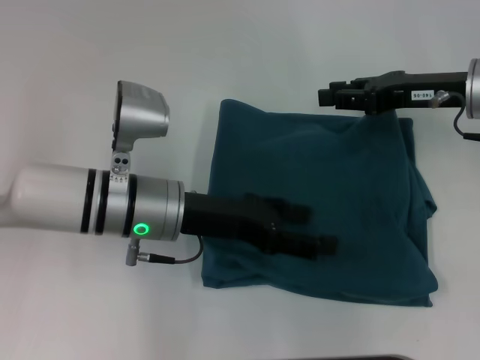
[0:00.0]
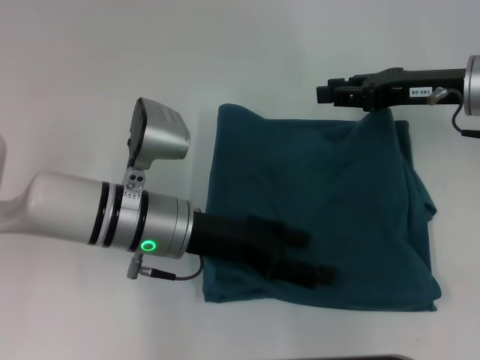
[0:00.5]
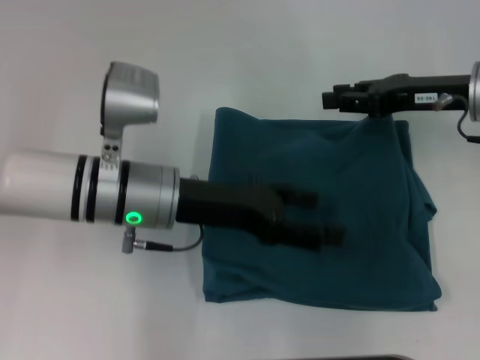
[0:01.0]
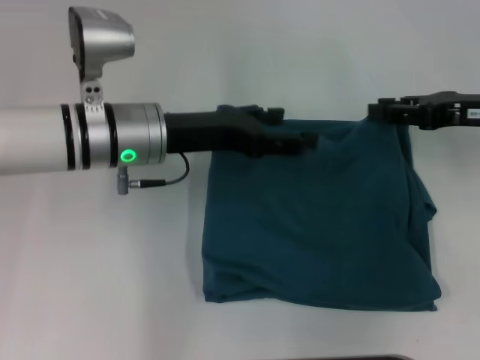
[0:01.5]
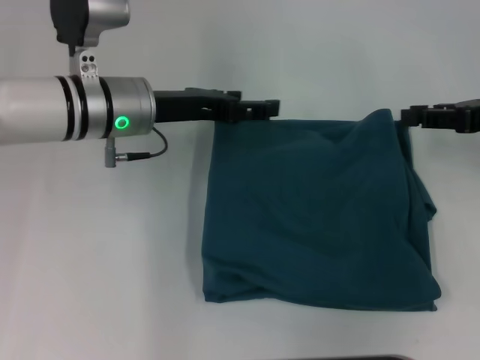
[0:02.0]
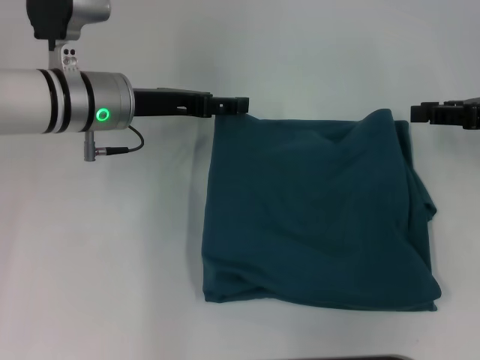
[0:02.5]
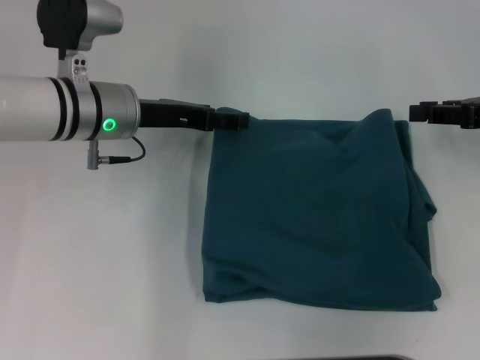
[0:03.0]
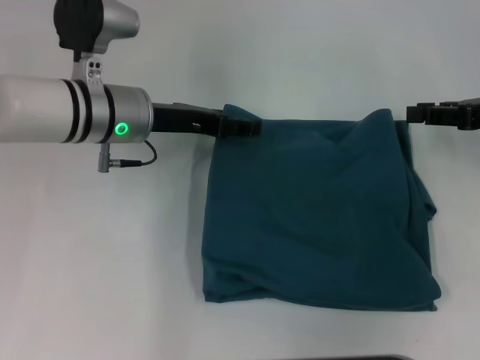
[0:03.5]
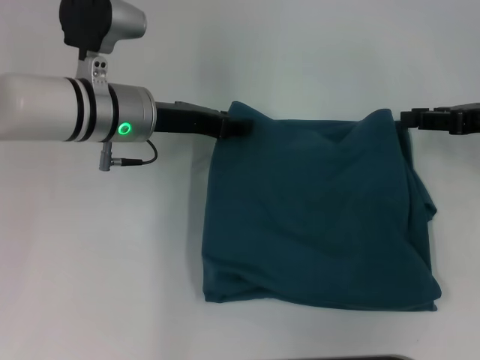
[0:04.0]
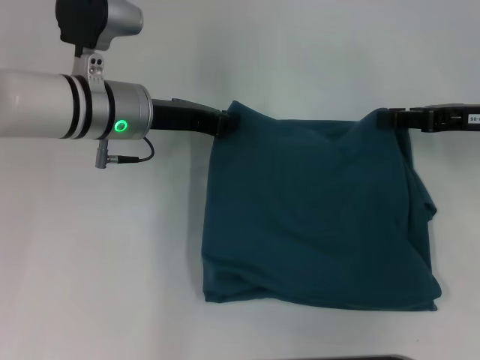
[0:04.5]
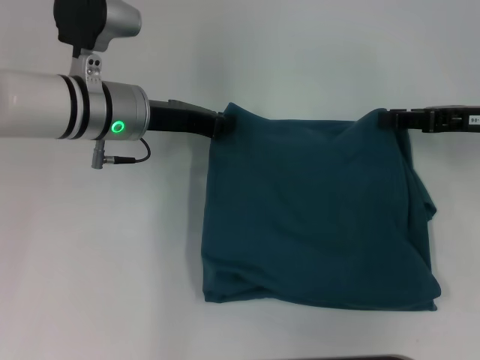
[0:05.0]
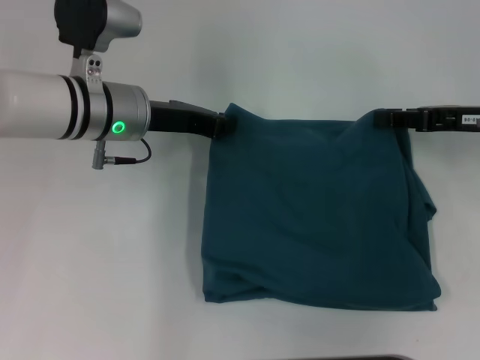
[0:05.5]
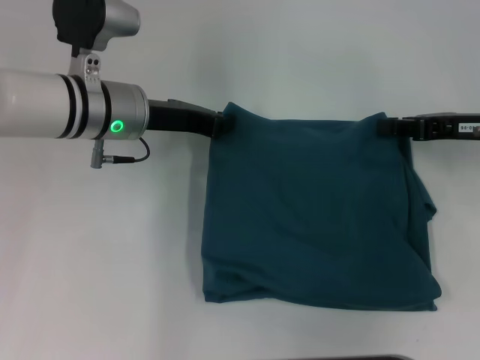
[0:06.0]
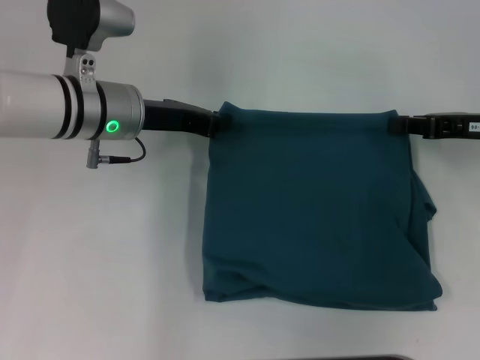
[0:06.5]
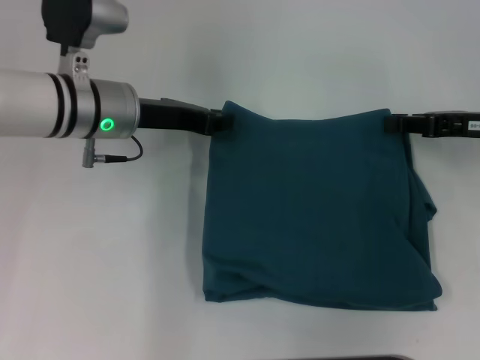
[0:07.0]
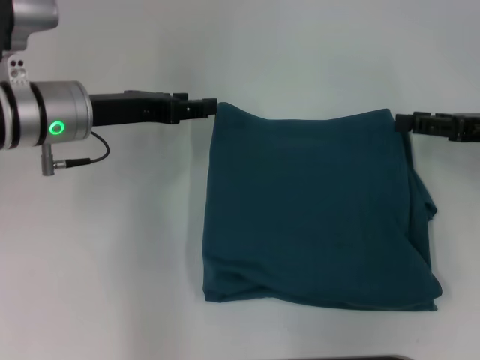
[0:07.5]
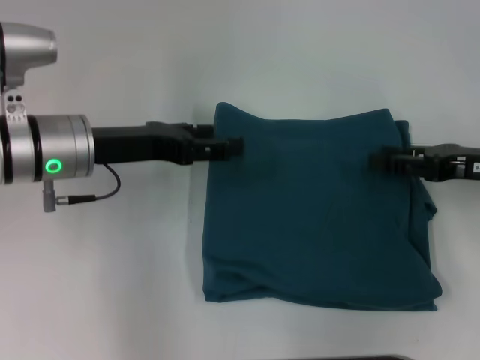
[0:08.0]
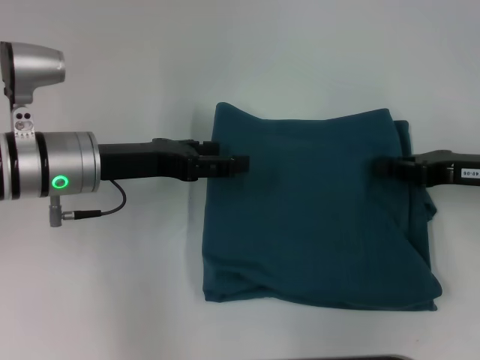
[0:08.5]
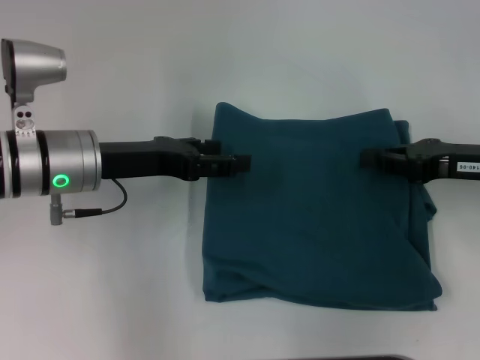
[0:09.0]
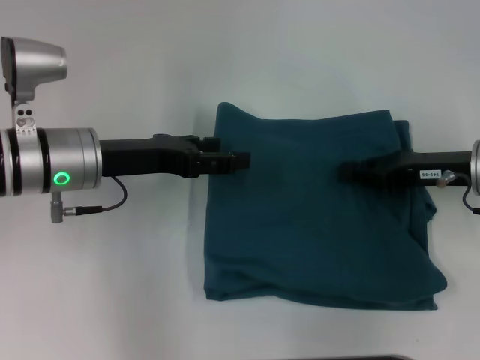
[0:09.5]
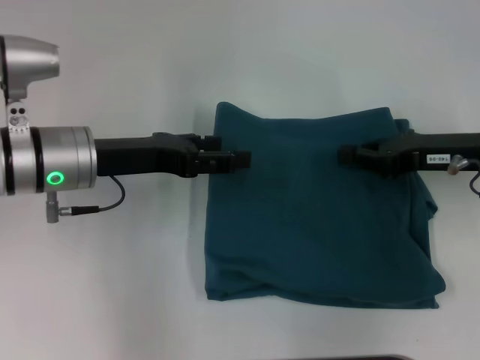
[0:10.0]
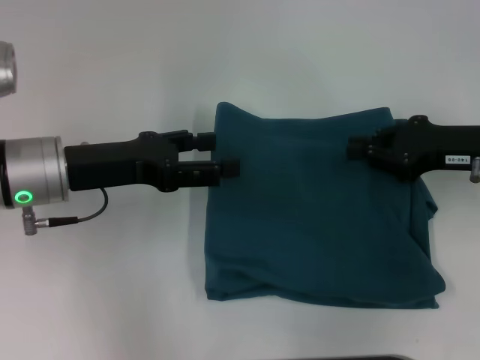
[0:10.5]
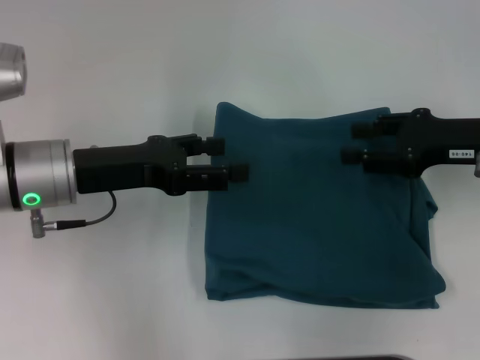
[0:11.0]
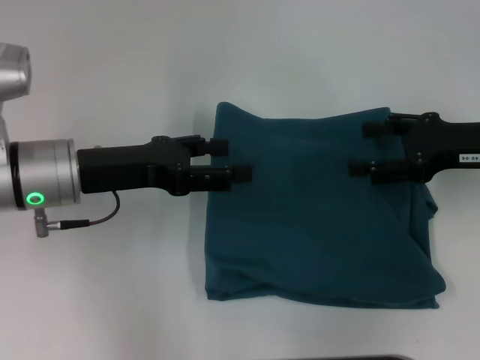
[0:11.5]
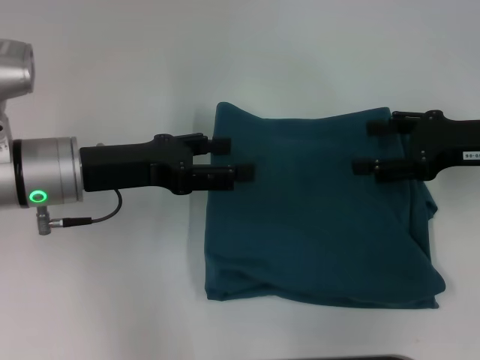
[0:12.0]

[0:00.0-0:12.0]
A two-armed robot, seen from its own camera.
0.0 to 2.0 s: The right gripper travels to the right by some 10 cm, while the left gripper shifts about 10 cm forward.
2.0 to 4.0 s: There are only small adjustments of the grippers.
4.0 to 6.0 s: The left gripper closes.
6.0 to 8.0 s: The right gripper opens its fingers. Meanwhile the left gripper shifts some 5 cm backward, and opens up.
8.0 to 10.0 s: The right gripper closes.
10.0 to 12.0 s: The right gripper opens up.

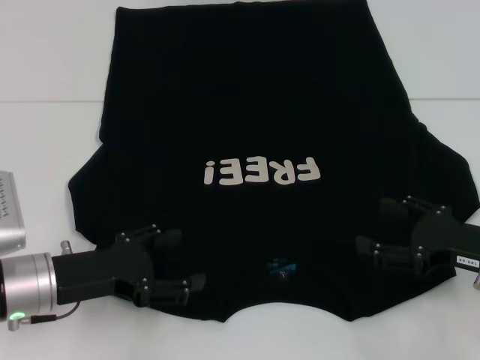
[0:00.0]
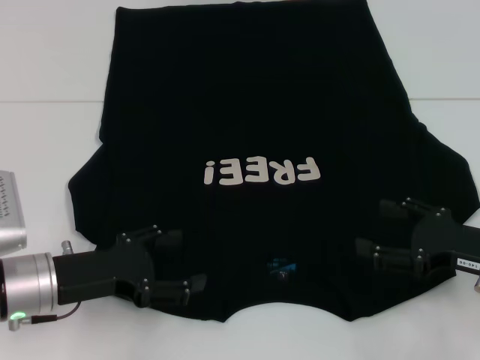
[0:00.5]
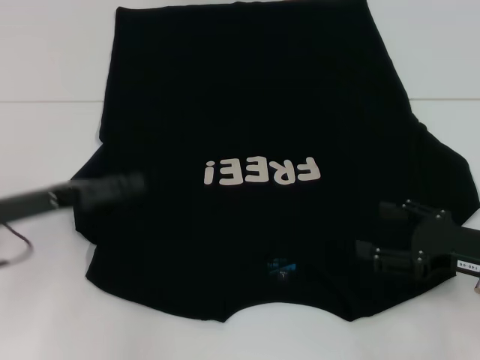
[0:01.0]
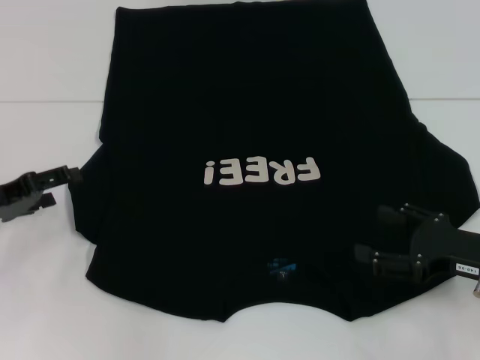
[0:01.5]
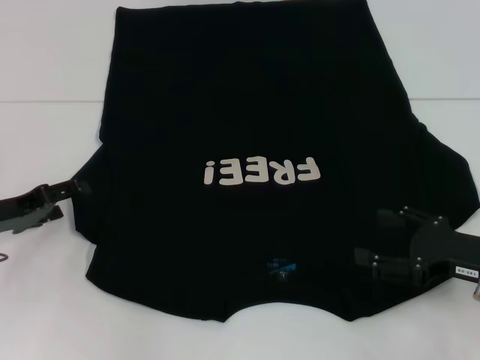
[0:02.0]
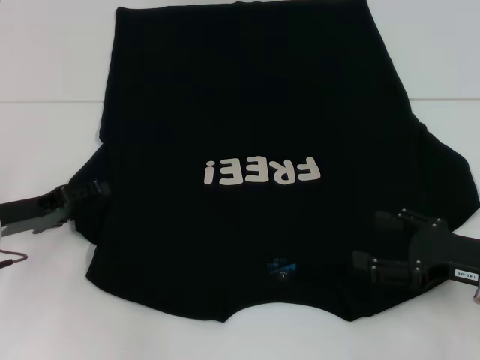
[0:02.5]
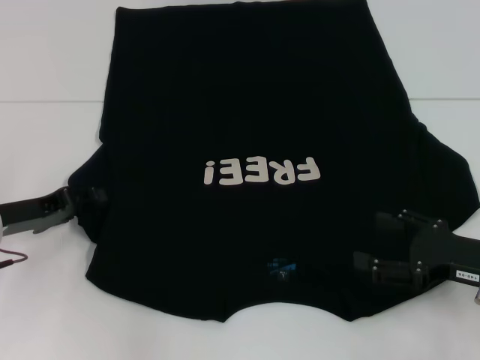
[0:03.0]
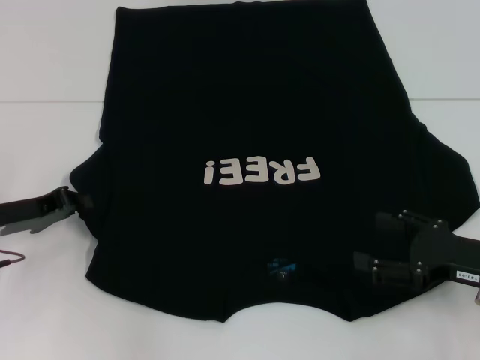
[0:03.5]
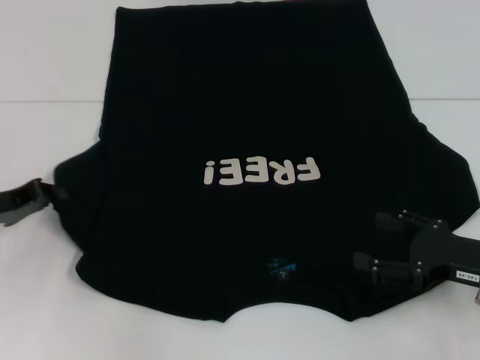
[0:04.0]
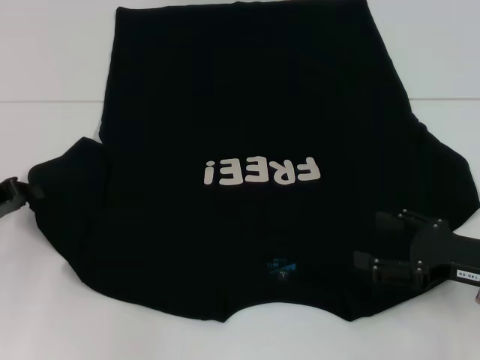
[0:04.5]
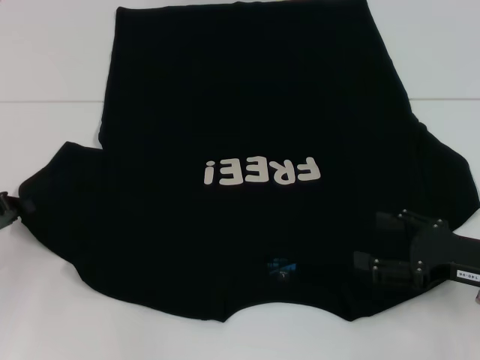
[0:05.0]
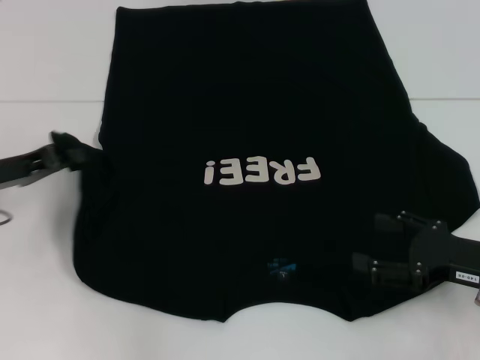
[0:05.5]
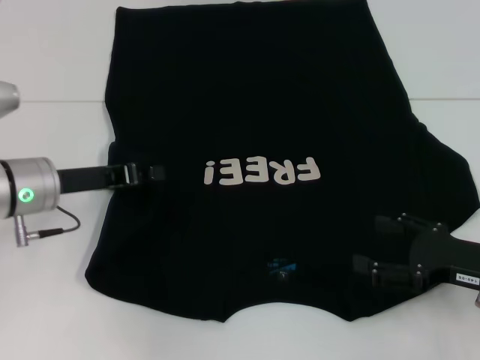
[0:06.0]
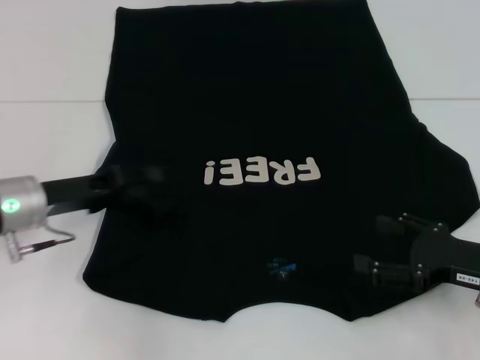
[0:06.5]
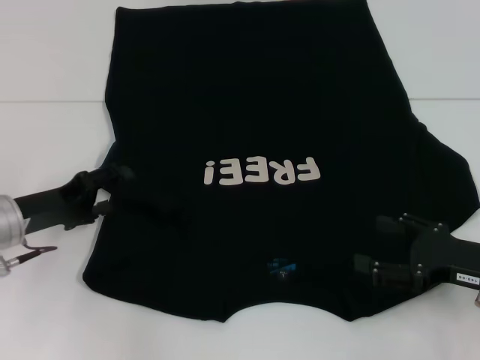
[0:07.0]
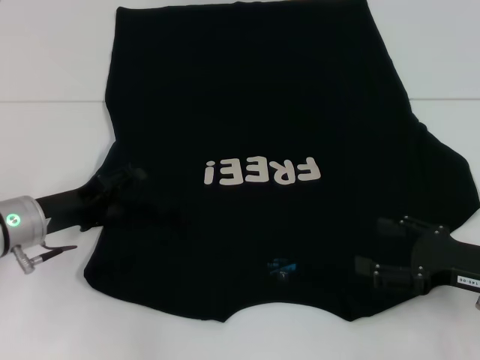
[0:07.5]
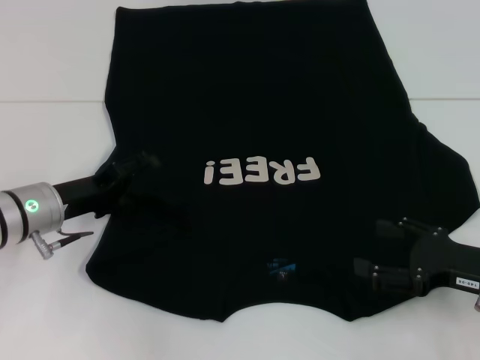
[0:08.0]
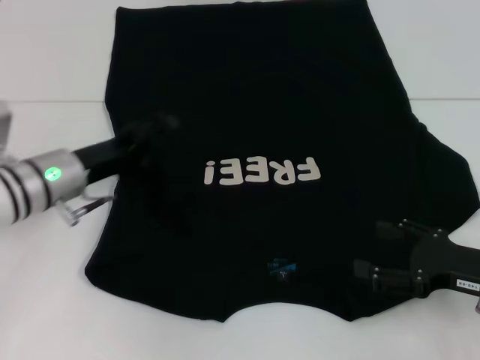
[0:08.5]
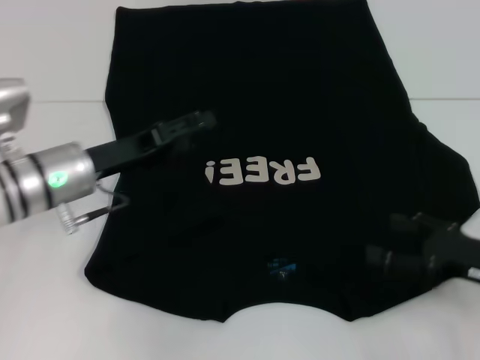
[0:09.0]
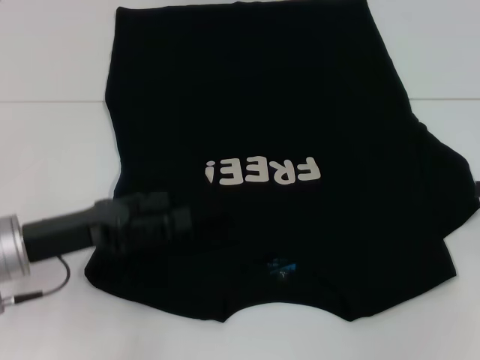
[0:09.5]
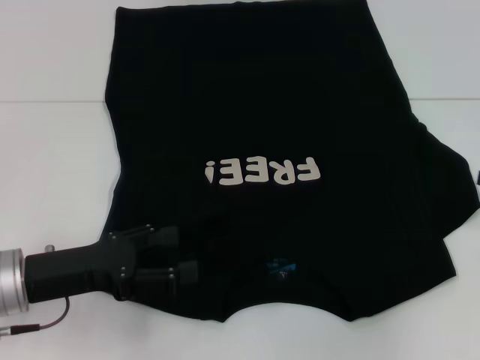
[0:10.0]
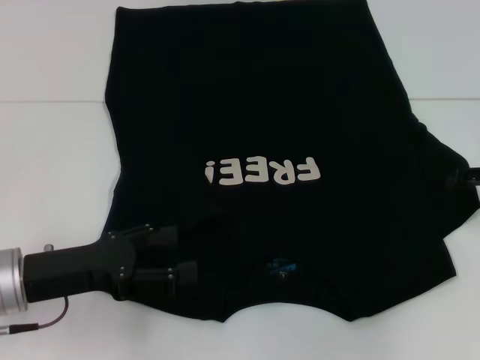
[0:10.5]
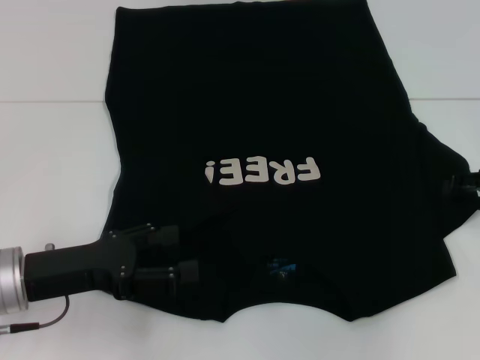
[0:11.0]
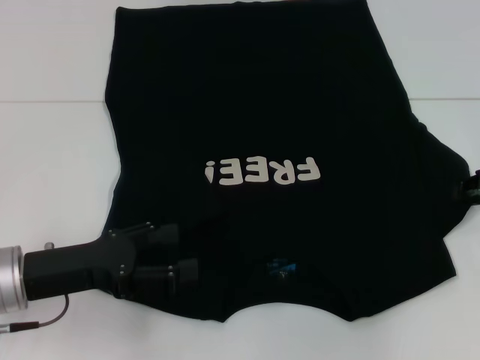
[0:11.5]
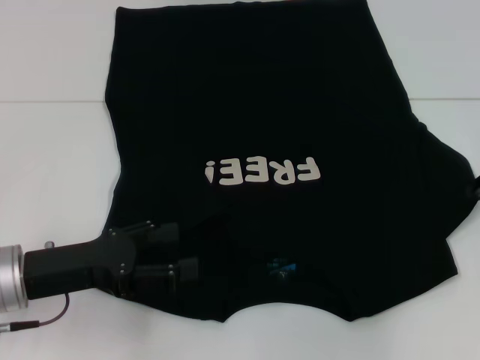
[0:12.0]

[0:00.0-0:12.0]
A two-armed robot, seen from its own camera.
Step, 0.0 to 9.0 s: Fold the bottom left sleeve with your left hand.
0.0 to 2.0 s: The left gripper moves to the left and forward, roughly 10 cm.
2.0 to 4.0 s: The left gripper closes up.
4.0 to 6.0 s: The left gripper goes some 10 cm to the right.
6.0 to 8.0 s: The left gripper opens up.
8.0 to 10.0 s: The left gripper heads backward, covering some 10 cm; the right gripper heads to the right, forward and upward, covering approximately 15 cm.

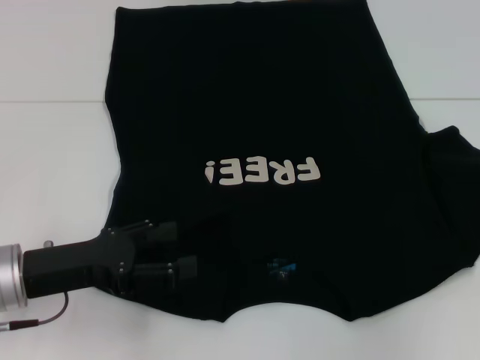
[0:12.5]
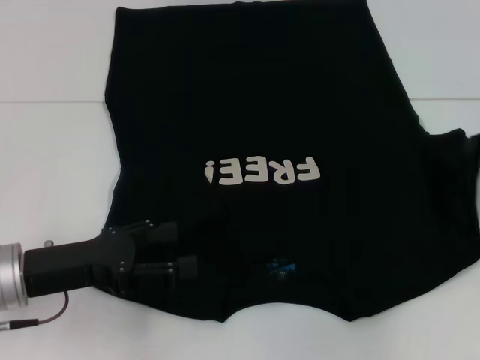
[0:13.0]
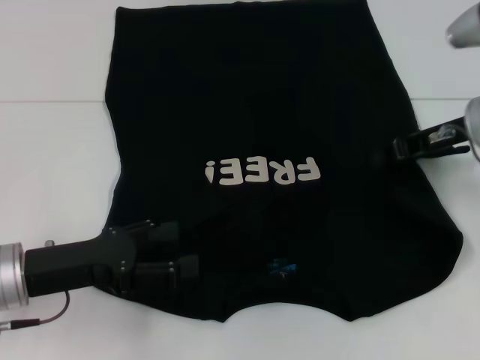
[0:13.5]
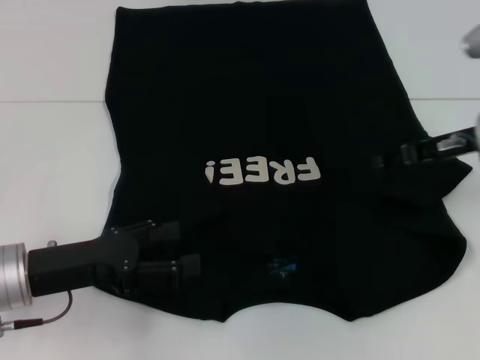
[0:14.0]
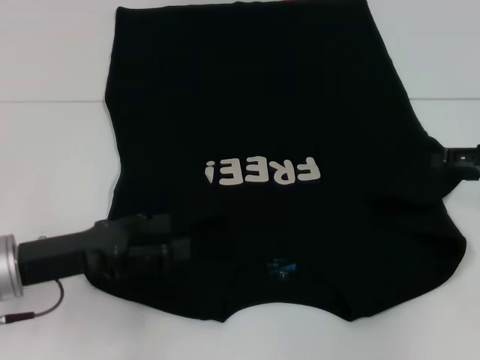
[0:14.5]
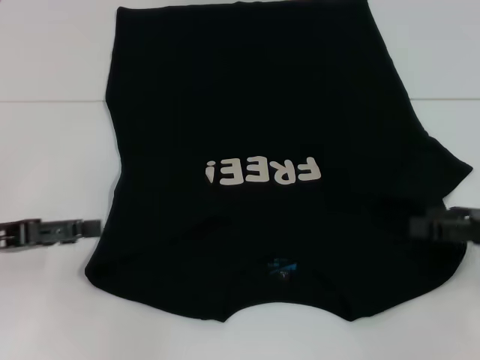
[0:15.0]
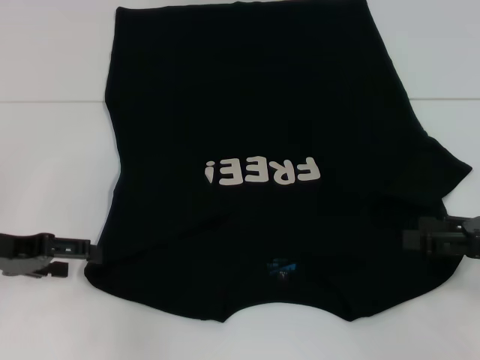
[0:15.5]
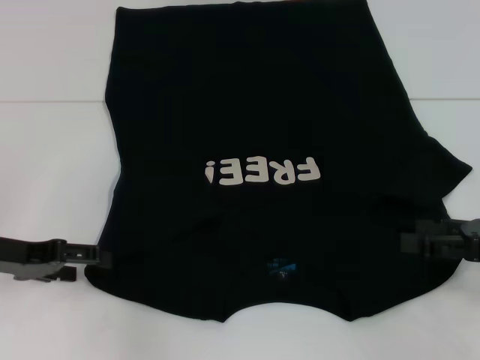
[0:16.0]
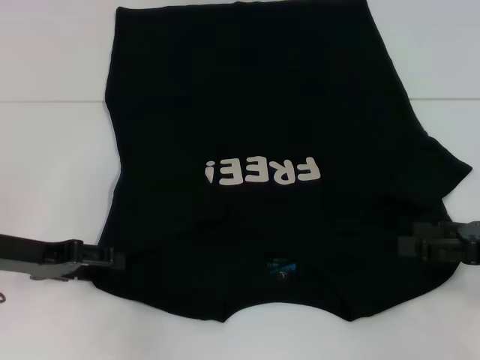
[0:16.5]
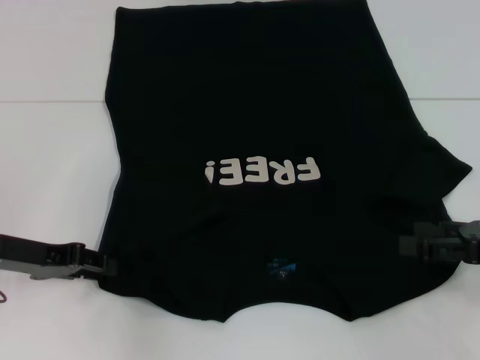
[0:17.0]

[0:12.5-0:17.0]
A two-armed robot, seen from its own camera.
Step, 12.5 to 14.5 s: Fold the bottom right sleeve with your right hand.
12.5 to 14.5 s: The right gripper goes to the left and returns, approximately 15 cm each way, and opens its fingers.
14.5 to 17.0 s: The right gripper moves backward, approximately 10 cm. Meanwhile the left gripper ends up about 5 cm from where it was, and closes up.
